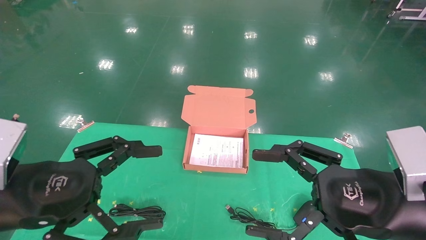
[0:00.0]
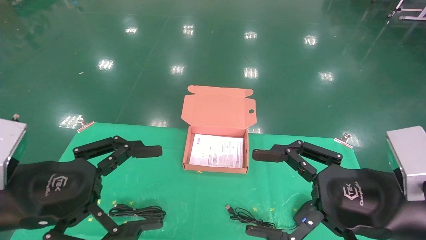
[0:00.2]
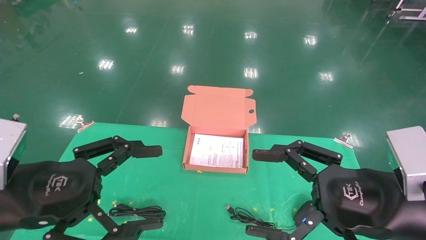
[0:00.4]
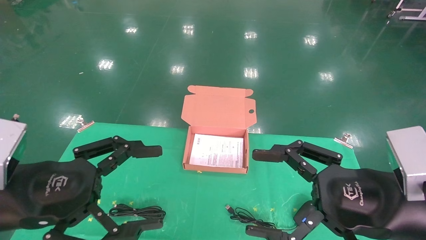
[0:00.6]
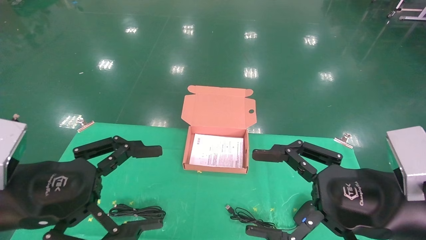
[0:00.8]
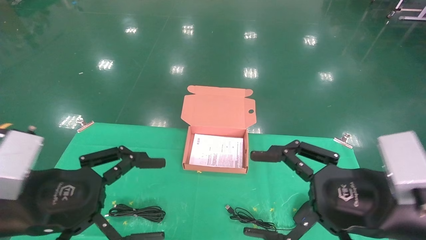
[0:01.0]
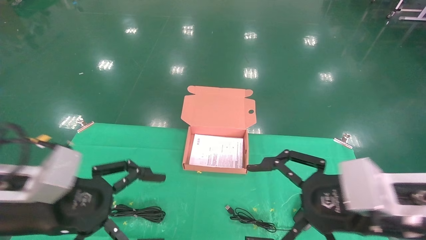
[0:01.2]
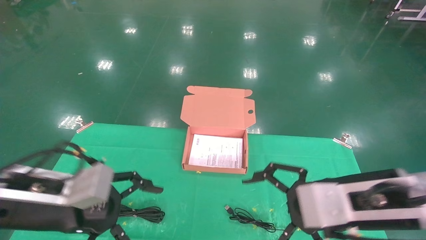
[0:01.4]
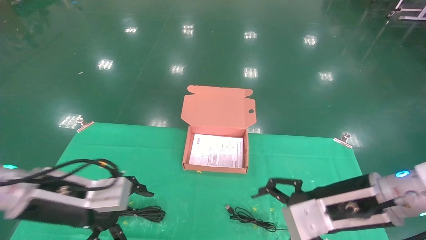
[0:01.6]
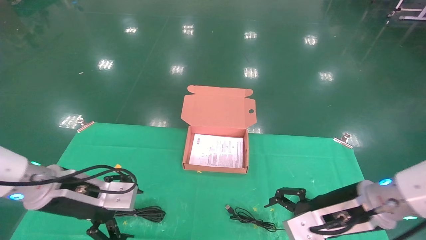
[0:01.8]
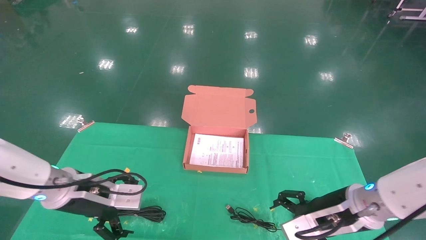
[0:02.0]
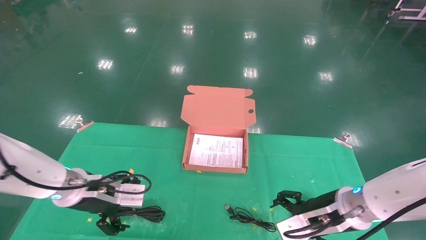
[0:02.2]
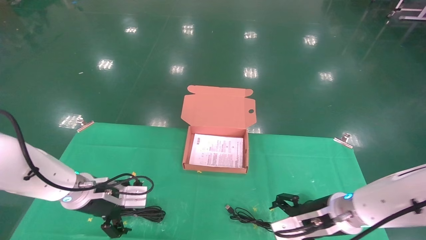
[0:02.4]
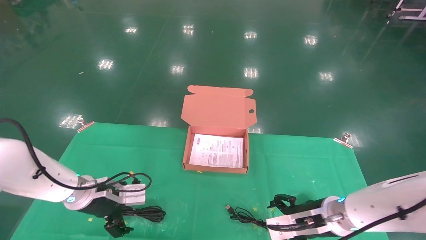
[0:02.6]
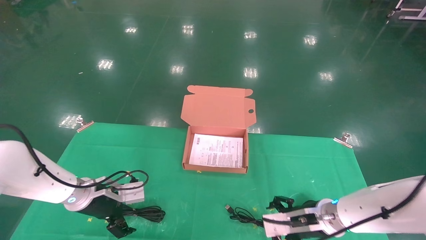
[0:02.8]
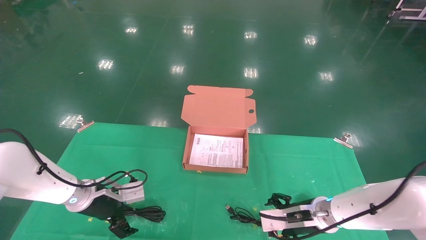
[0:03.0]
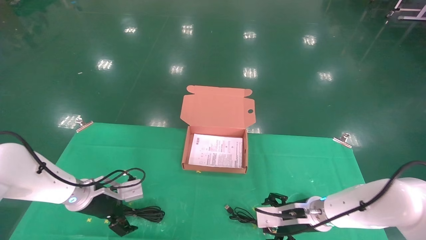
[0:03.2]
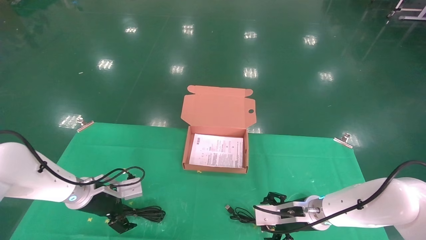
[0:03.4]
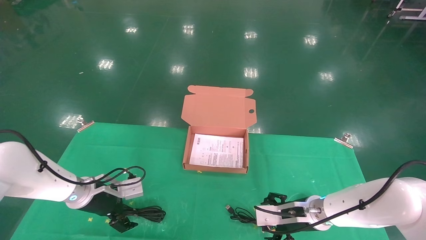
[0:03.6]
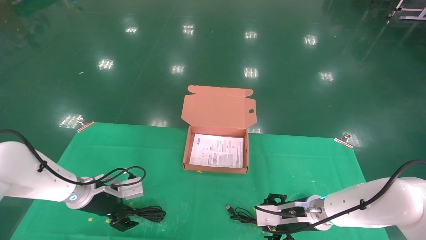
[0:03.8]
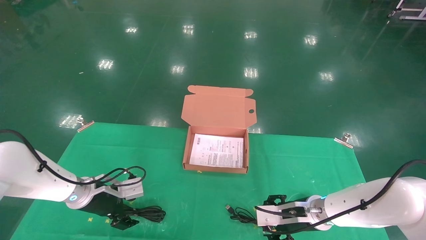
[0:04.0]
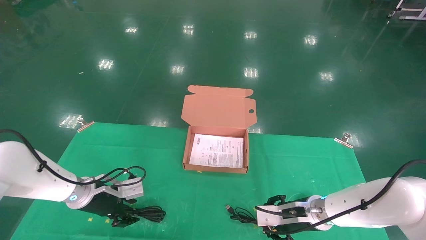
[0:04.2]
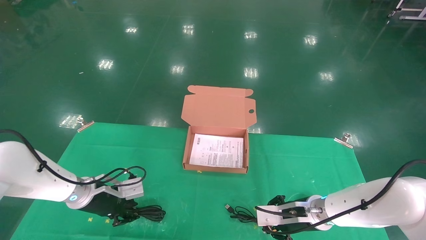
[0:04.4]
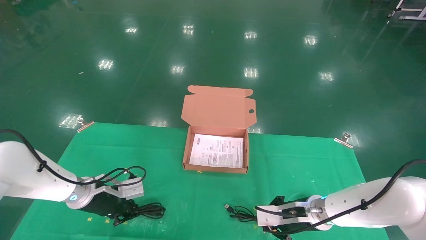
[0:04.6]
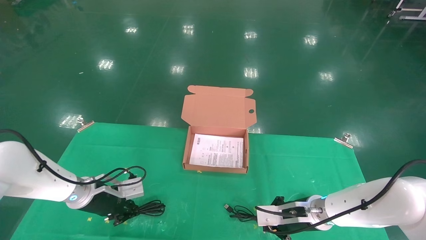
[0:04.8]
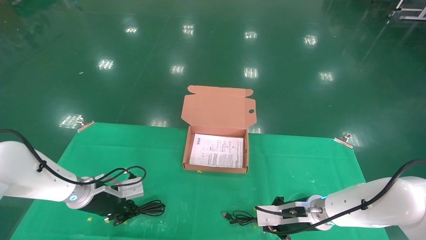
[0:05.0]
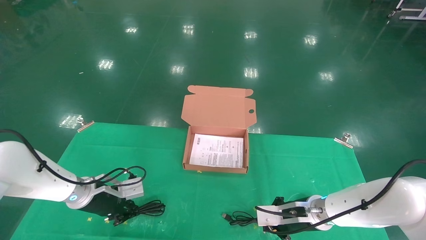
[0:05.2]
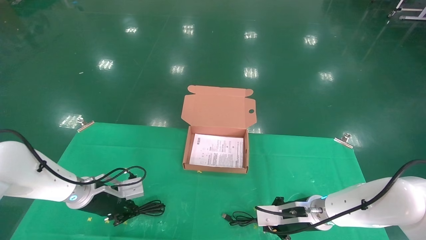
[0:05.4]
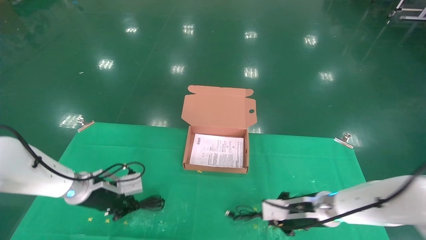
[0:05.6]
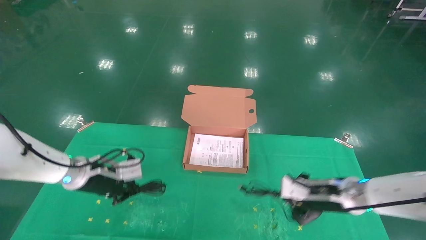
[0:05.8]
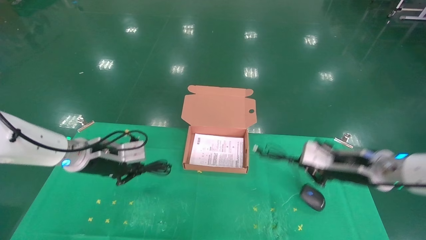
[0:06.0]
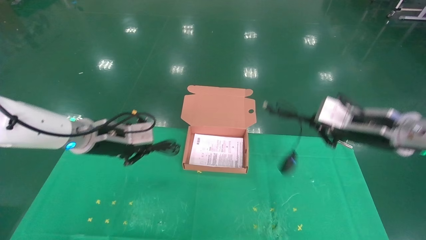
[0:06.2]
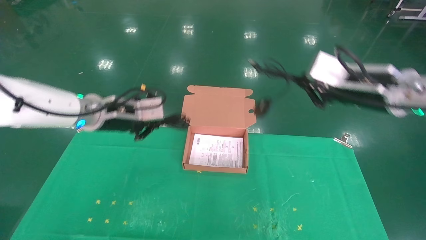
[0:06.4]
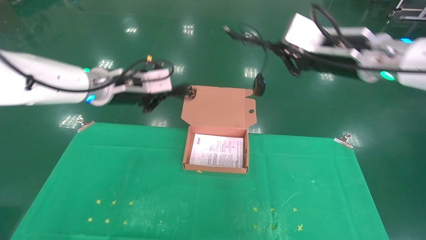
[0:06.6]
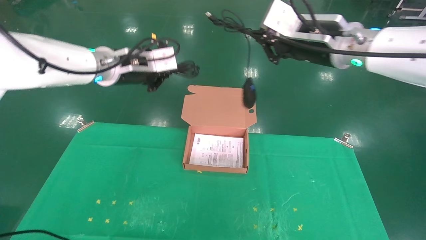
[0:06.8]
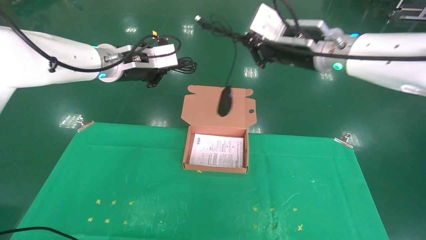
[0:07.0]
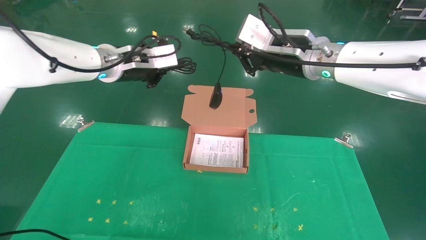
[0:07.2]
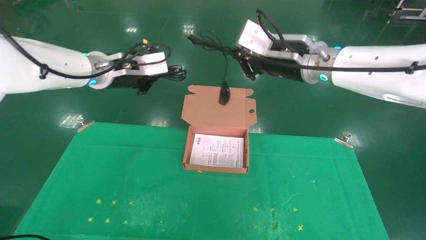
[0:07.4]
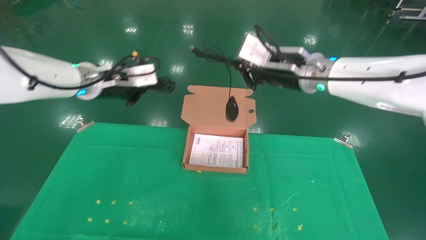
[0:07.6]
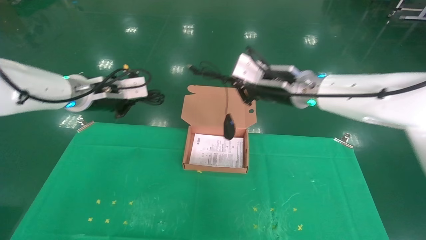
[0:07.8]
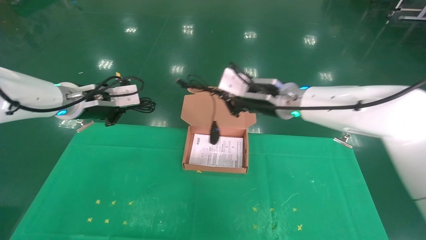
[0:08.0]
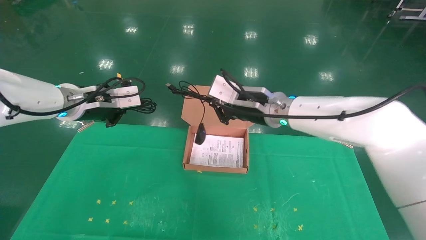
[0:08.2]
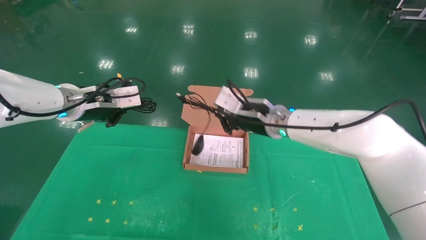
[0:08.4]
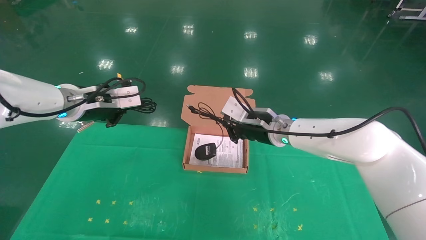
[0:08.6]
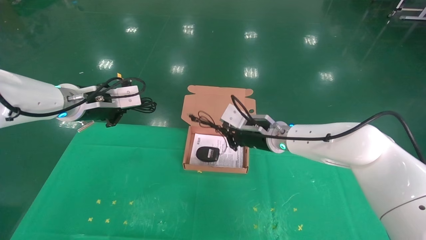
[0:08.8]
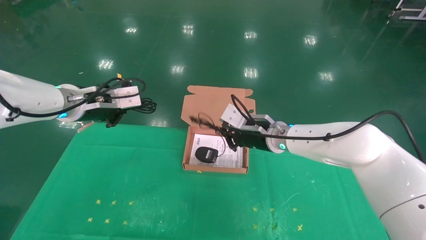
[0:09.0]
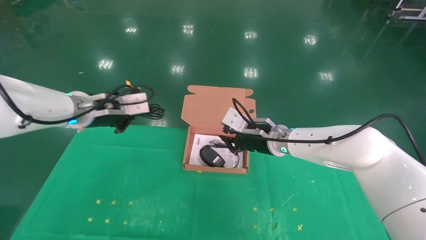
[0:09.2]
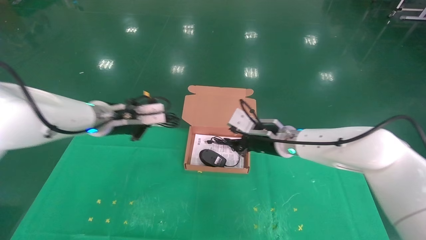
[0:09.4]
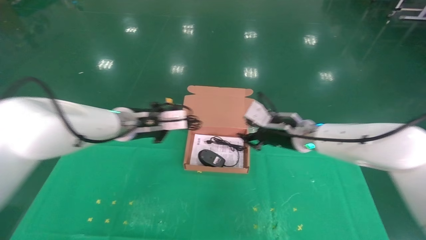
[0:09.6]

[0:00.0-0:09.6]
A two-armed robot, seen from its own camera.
Task of the whole recording: grasp data cable left put into box grasp mouse right put into box.
Step, 0:01.2 to 0:05.8: Grab and pick up both the mouse and power cord from the accessory packaging area at the same time.
0:00.0 to 0:01.6: Both grippers travel together forward, about 10 cm.
0:01.6 to 0:03.2: The right gripper goes some 20 cm downward and forward; the left gripper heads forward and downward, covering approximately 20 cm.
0:03.2 to 0:04.8: The right gripper closes. Meanwhile the left gripper closes its fingers.
0:04.8 to 0:06.4: Both grippers move upward, some 25 cm.
0:06.4 to 0:08.0: The left gripper goes upward and returns, about 10 cm each way. The right gripper travels to the left and forward by roughly 15 cm.
0:08.0 to 0:09.6: The left gripper is displaced to the right and downward by about 10 cm; the right gripper goes approximately 10 cm downward and to the right.

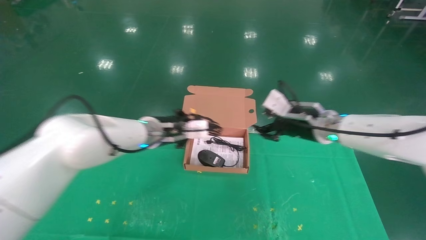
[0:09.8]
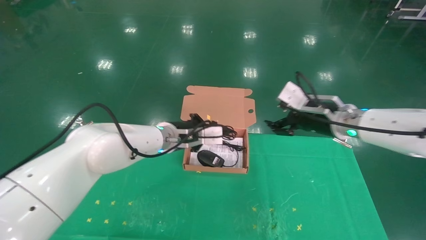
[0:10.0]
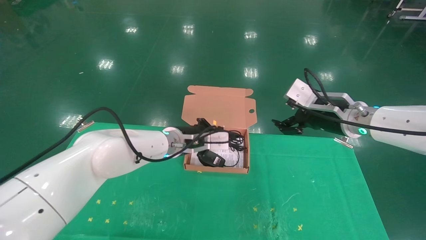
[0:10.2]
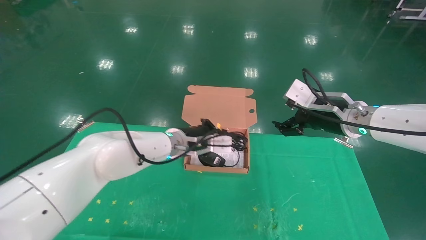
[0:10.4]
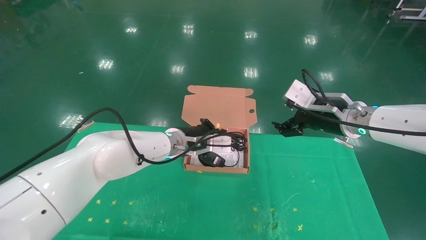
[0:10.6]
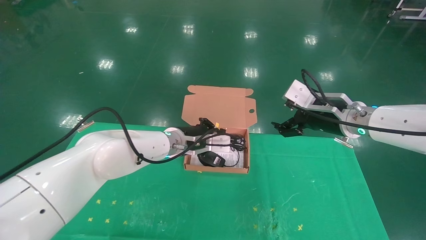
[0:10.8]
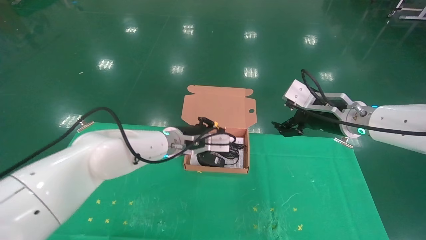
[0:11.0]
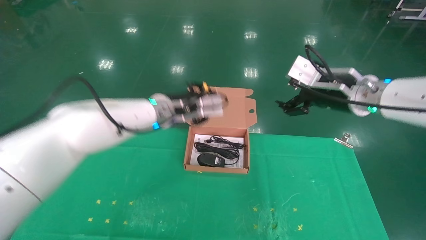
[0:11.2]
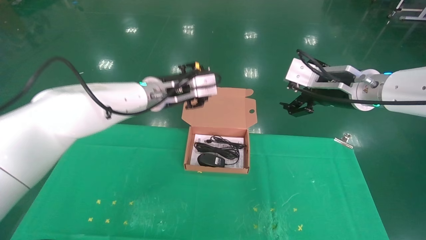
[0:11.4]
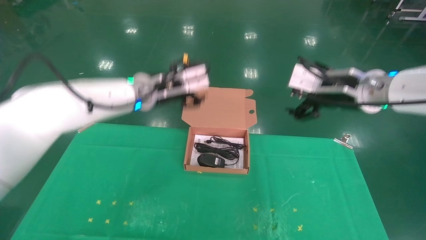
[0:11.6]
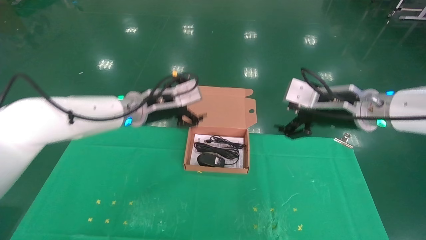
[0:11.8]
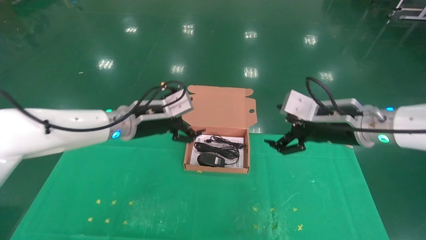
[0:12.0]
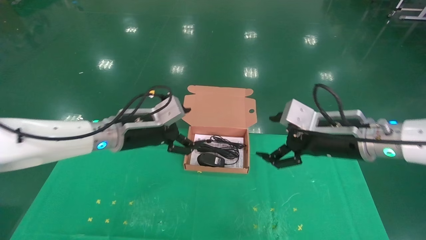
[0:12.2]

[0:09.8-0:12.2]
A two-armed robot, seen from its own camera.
Task of the whole recording: grasp data cable left put into box grasp mouse right put into box.
0:09.8 to 0:11.0: The right gripper ends up some 5 cm from where it was, and opens its fingers.
0:11.0 to 0:12.2: The left gripper shifts about 10 cm to the left and backward, and opens its fingers. Meanwhile the right gripper moves backward, about 5 cm.
